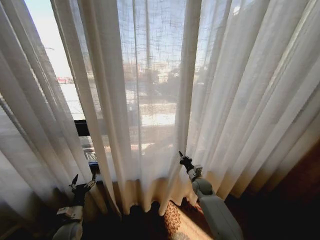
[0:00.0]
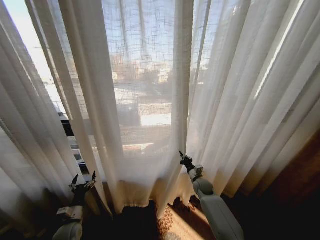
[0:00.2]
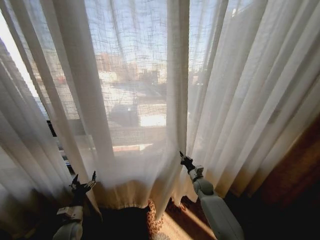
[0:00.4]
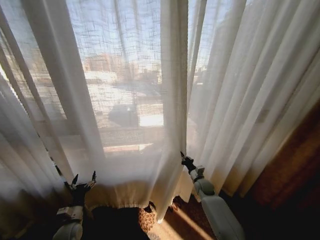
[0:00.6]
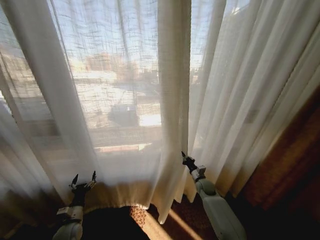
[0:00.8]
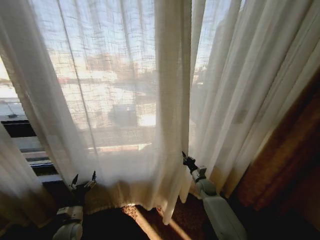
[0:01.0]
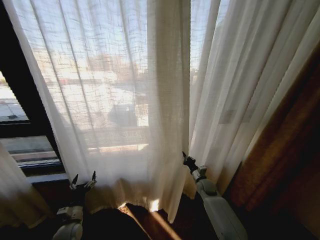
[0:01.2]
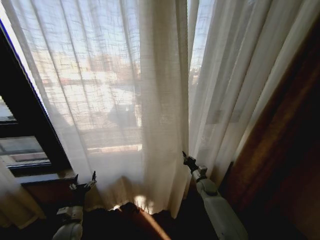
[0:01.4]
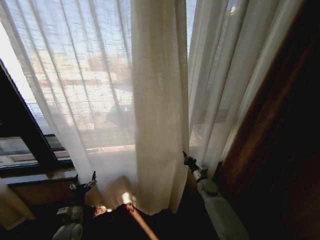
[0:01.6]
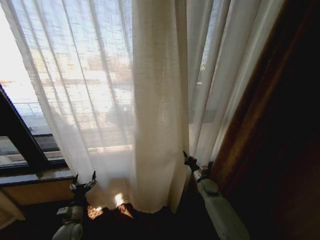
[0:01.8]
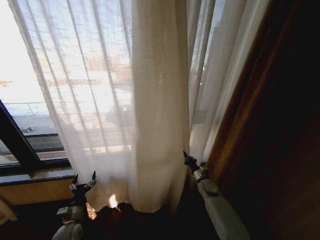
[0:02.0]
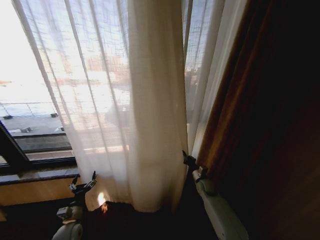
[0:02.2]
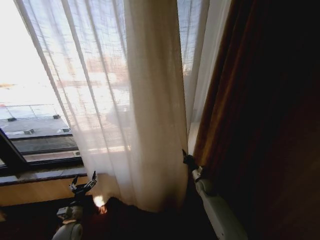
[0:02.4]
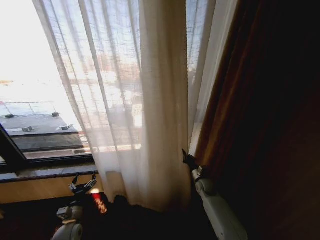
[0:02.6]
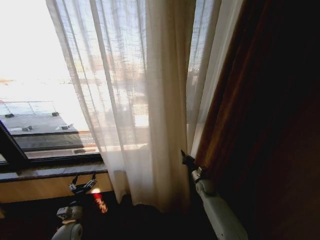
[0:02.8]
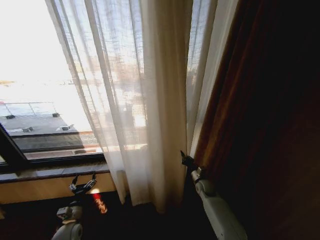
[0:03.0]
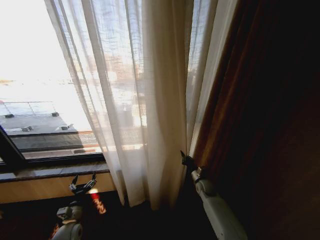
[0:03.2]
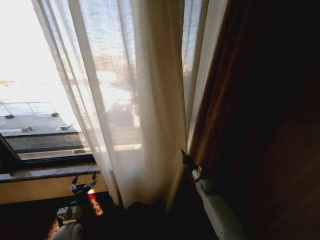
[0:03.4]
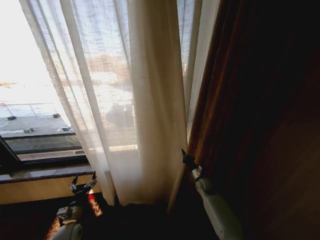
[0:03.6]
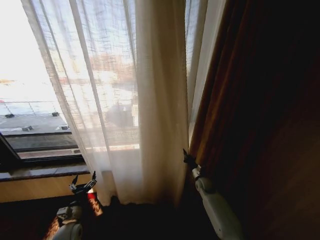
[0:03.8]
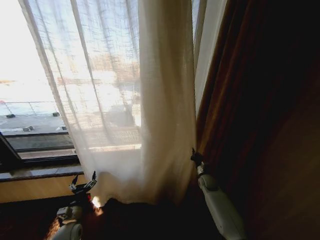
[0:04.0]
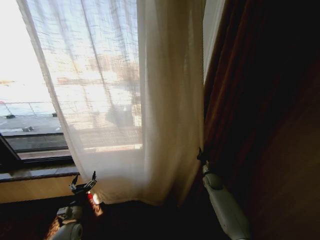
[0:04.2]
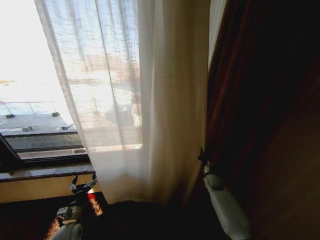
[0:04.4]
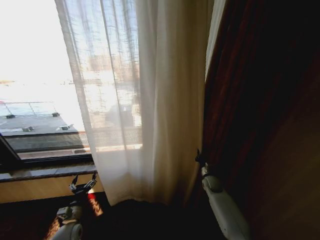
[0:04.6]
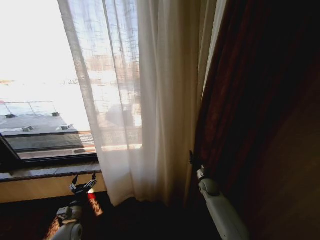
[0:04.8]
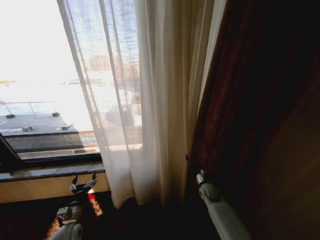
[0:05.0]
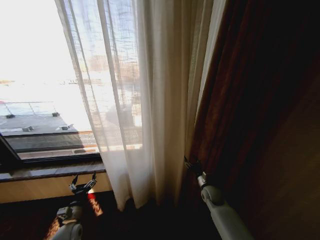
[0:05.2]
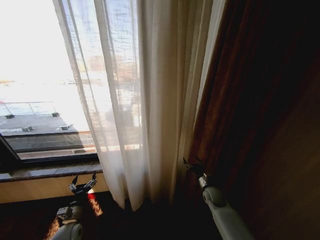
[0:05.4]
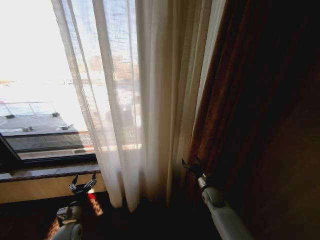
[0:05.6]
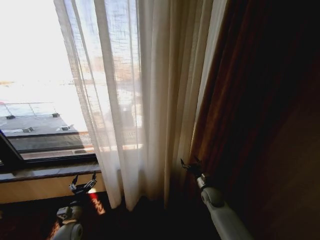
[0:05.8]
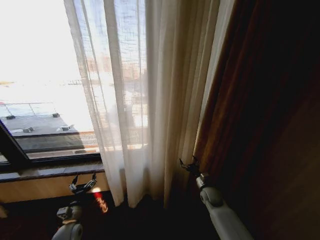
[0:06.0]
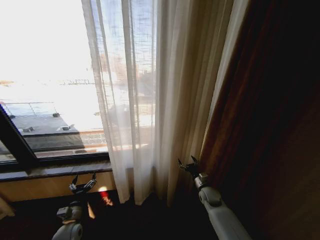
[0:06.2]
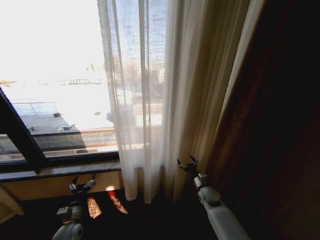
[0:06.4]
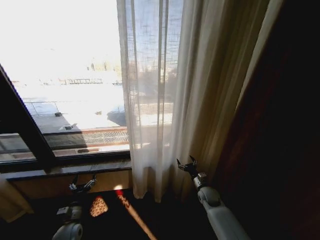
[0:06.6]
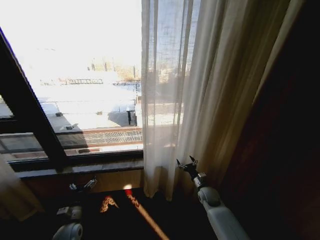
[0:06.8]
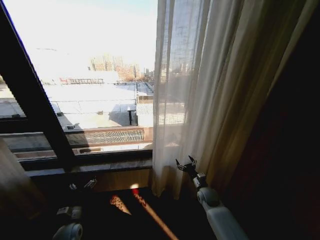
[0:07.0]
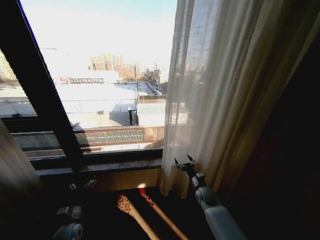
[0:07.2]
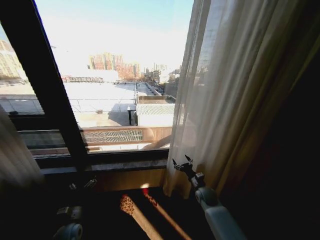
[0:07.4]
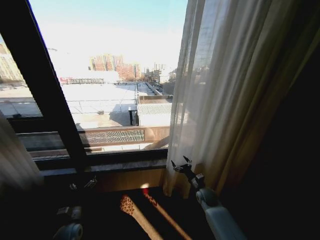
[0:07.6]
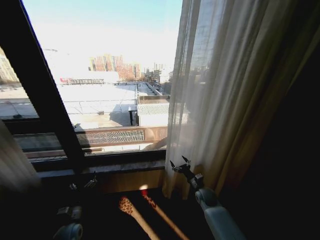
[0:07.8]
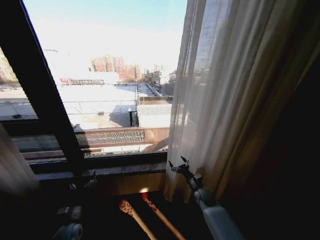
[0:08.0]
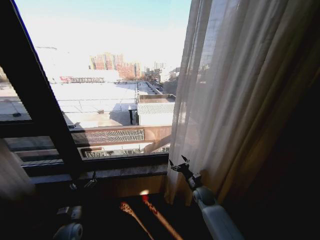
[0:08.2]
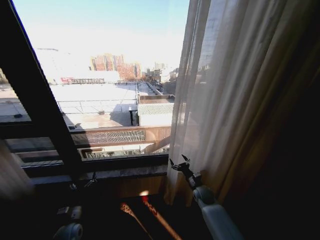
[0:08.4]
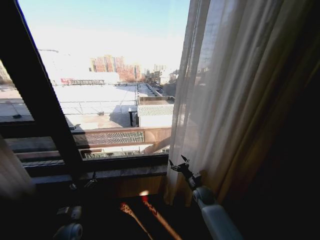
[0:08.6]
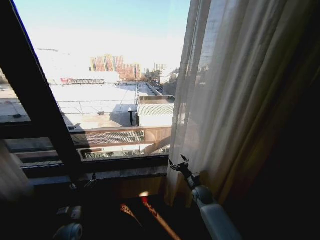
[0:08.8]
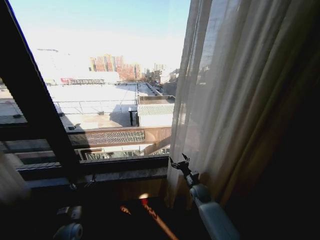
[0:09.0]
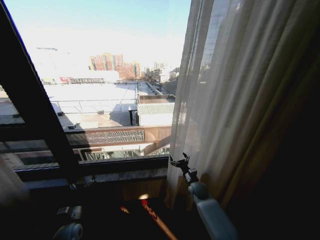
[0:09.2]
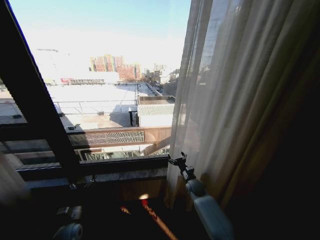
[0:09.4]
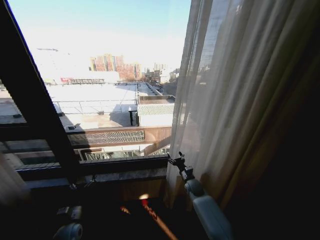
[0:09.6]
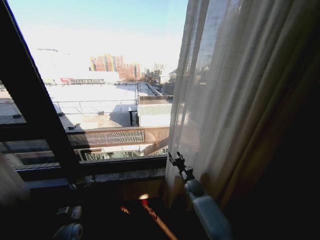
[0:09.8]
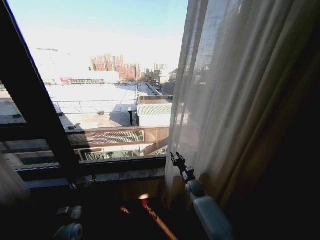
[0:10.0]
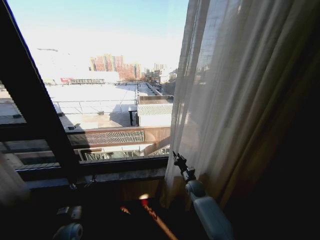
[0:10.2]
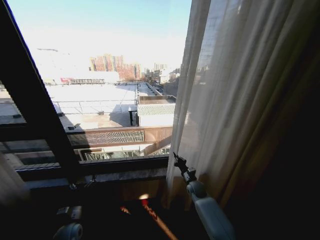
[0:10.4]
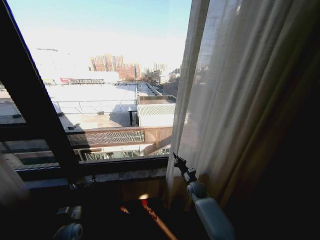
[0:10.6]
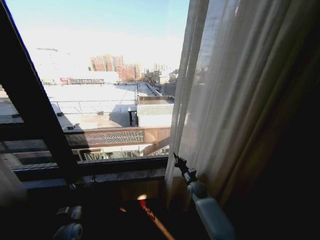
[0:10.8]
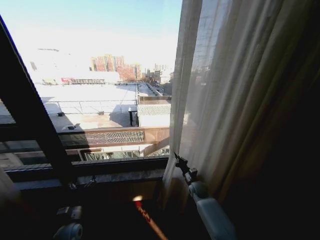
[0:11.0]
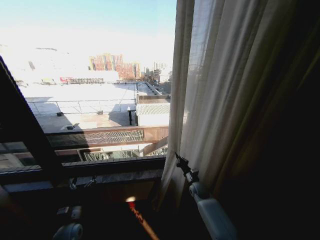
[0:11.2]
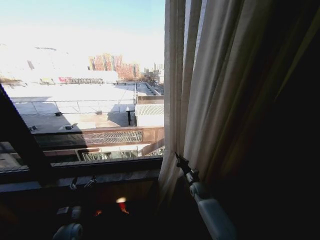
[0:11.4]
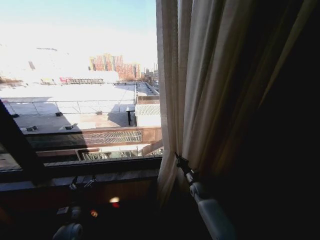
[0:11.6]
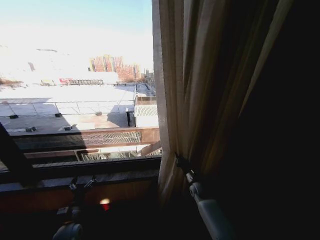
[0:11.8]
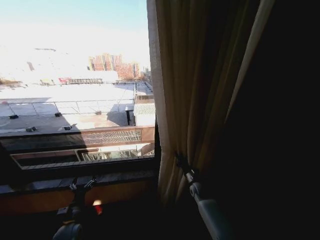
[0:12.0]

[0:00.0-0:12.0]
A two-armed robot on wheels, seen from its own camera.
Task of the whole recording: Open the curtains by pulling them apart, changing their state from closed to fully open.
0:03.0 to 0:04.4: The right gripper travels to the right by roughly 5 cm.
0:04.4 to 0:06.0: The right gripper moves backward, approximately 5 cm, and opens up.
0:09.0 to 0:10.4: The right gripper closes.

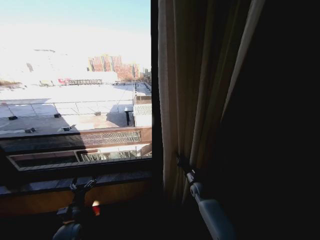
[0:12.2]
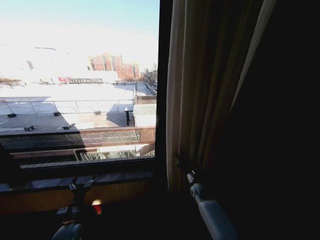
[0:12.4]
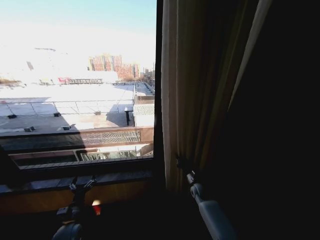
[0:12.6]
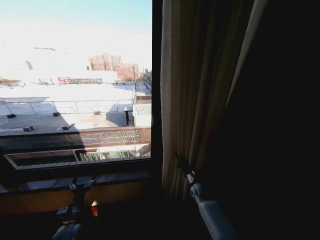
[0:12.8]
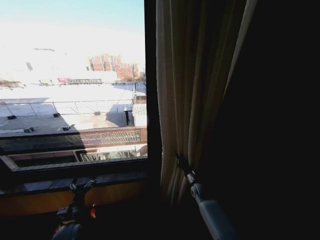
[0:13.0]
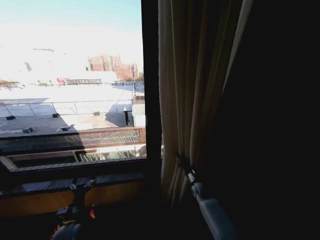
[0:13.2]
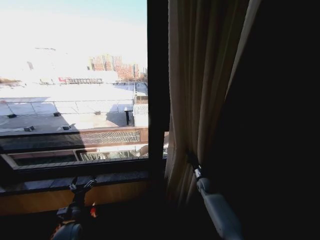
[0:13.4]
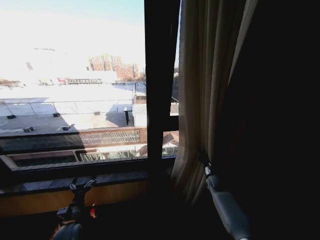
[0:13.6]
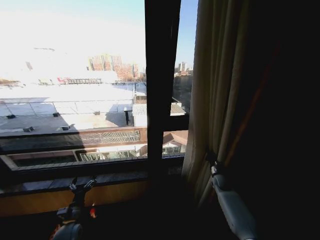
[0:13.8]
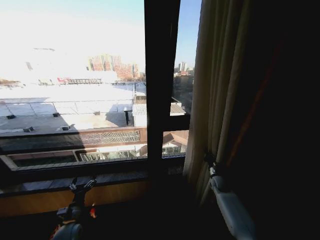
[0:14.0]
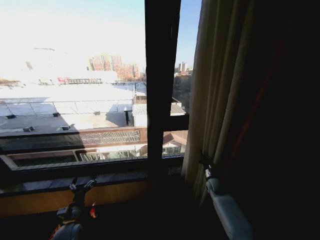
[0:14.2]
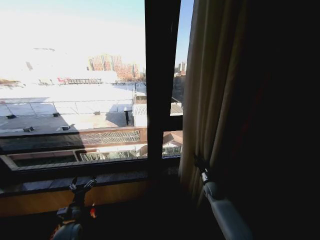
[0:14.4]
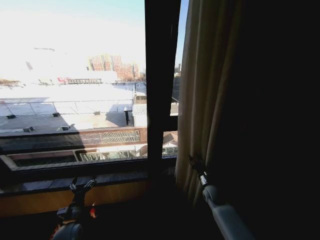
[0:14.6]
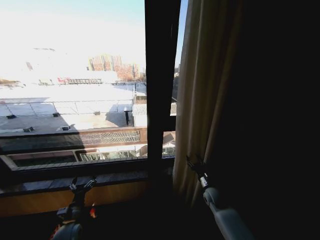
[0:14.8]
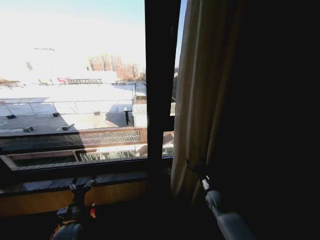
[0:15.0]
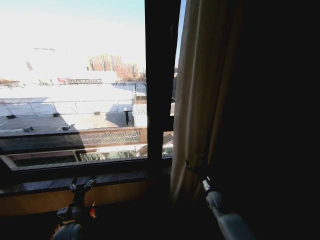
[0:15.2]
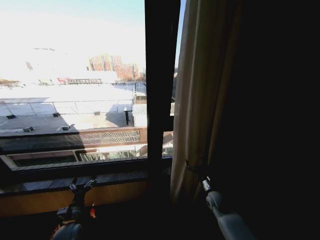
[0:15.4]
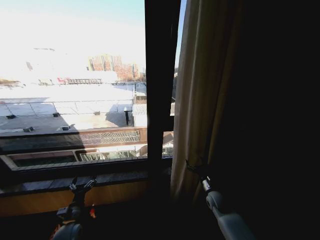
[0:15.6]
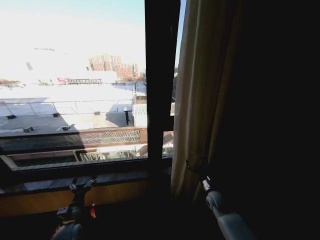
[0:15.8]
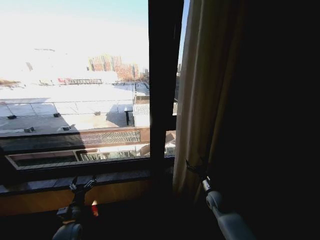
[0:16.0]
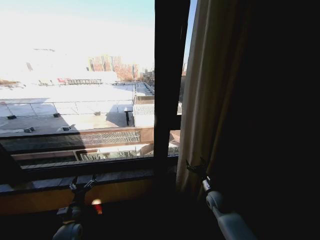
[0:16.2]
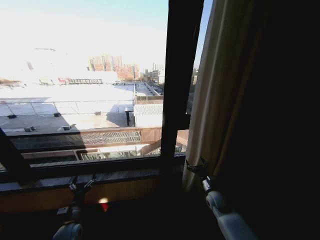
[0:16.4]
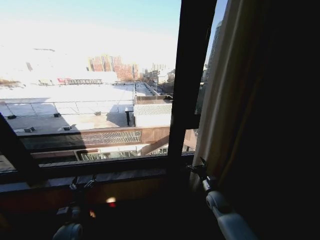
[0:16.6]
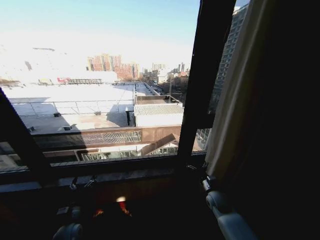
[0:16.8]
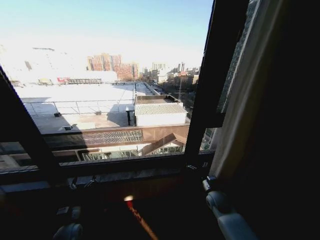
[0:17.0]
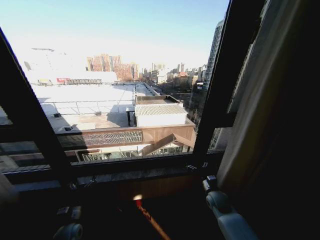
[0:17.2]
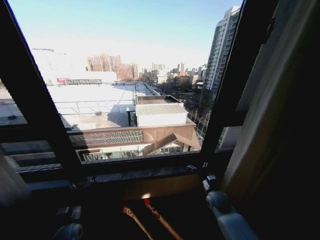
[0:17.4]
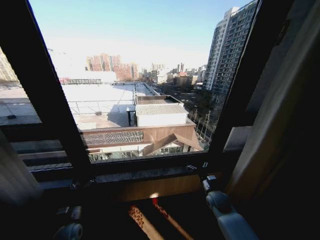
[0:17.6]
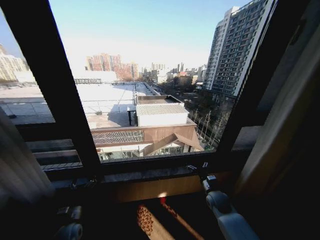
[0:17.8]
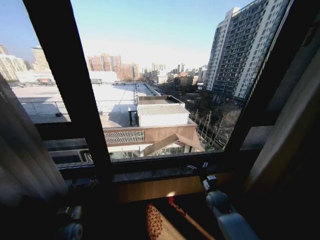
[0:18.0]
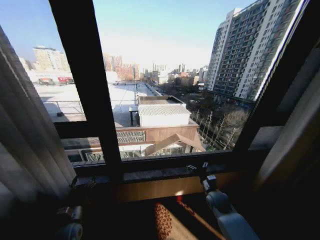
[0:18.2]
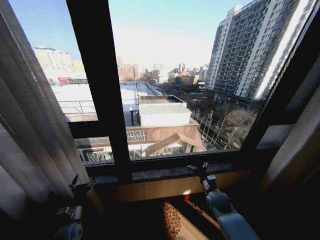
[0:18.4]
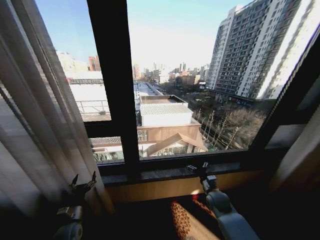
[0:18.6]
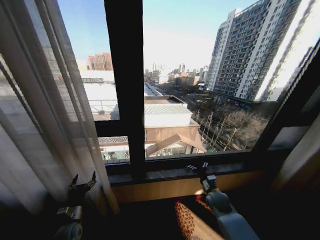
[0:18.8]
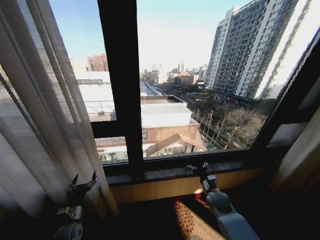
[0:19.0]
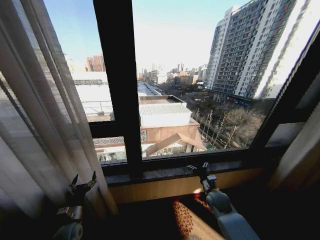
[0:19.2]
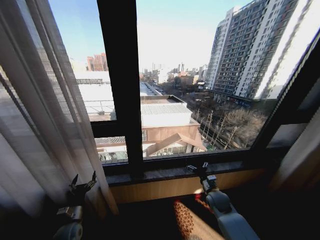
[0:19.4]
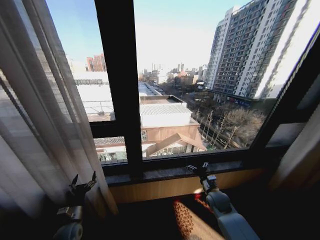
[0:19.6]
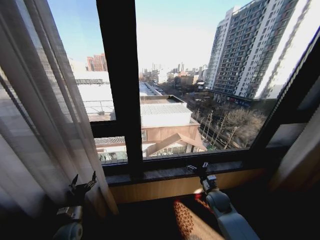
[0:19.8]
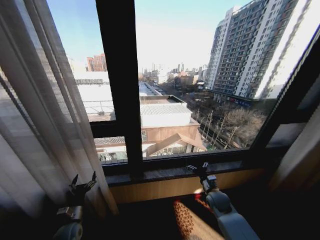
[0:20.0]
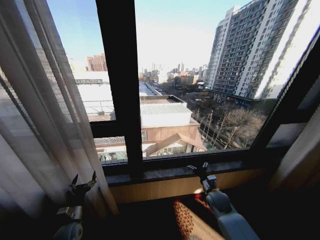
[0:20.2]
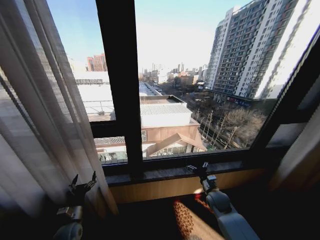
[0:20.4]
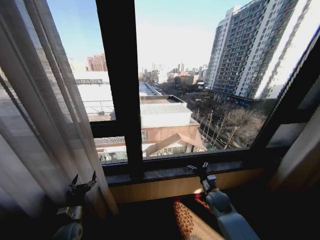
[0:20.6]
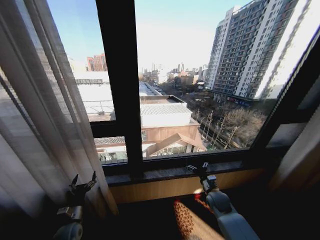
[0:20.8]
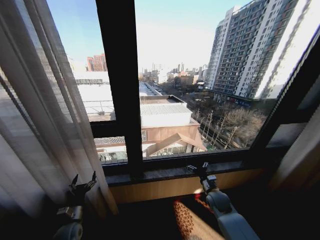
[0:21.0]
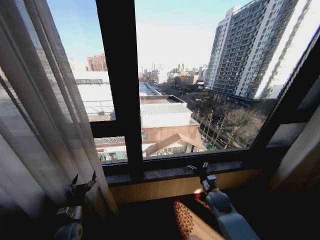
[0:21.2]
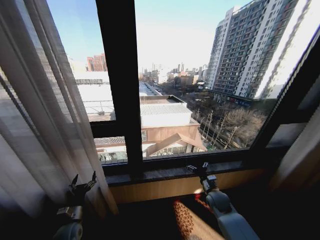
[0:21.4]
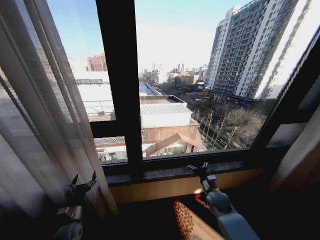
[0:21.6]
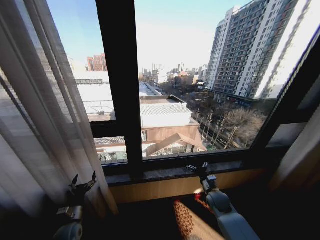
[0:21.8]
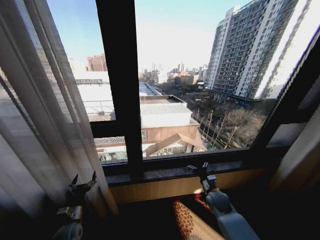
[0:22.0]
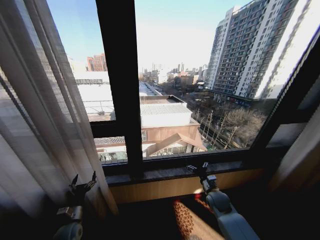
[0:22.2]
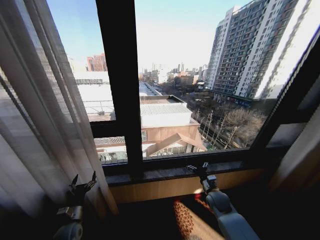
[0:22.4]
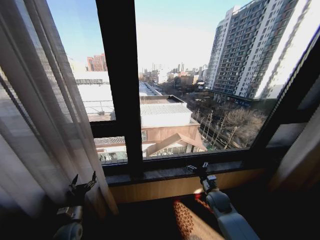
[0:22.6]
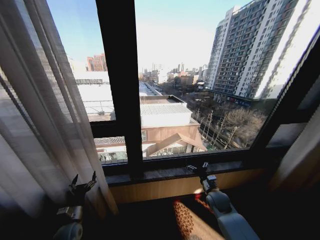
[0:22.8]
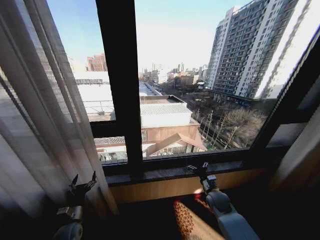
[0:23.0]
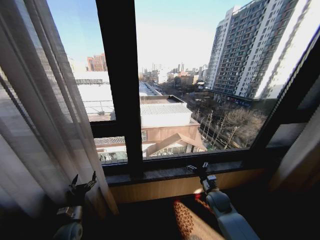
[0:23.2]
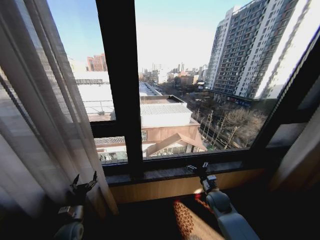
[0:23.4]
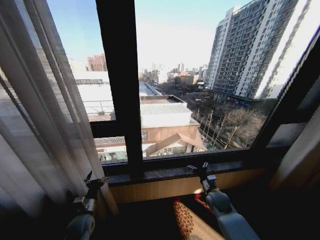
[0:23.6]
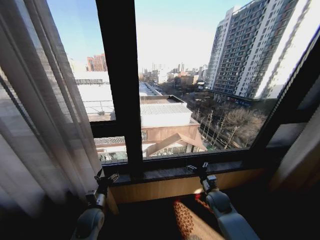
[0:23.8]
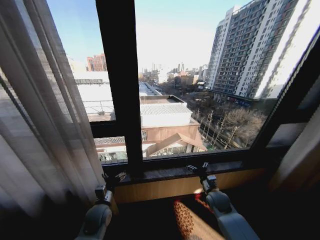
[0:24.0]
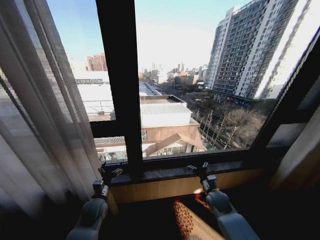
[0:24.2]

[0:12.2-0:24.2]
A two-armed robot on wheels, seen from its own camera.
Task of the whole recording: Open the curtains by pulling them apart, changing their state from closed to fully open.
0:12.2 to 0:13.8: The right gripper goes about 15 cm to the right.
0:13.8 to 0:15.2: The right gripper moves backward and to the left, approximately 10 cm, and opens up.
0:15.2 to 0:16.6: Both grippers stay about where they are.
0:19.8 to 0:22.6: Both grippers stay about where they are.
0:22.6 to 0:24.2: The left gripper travels to the right, upward and forward by approximately 15 cm.
